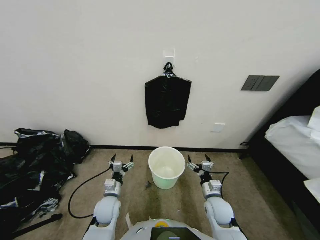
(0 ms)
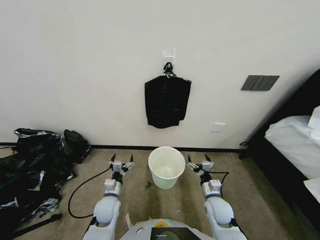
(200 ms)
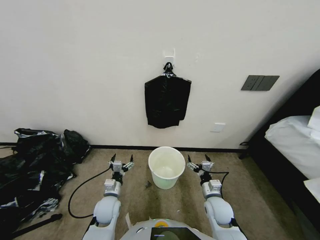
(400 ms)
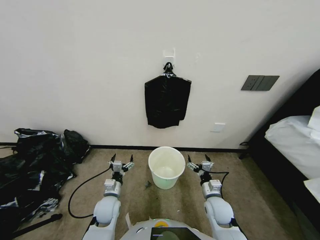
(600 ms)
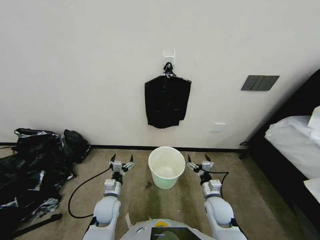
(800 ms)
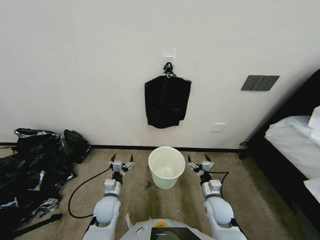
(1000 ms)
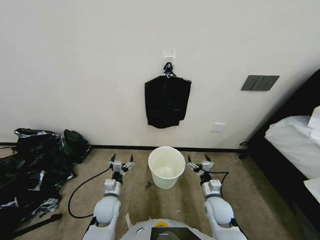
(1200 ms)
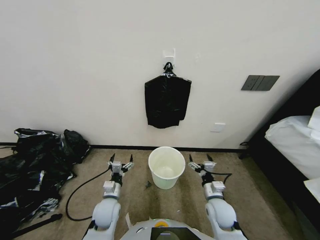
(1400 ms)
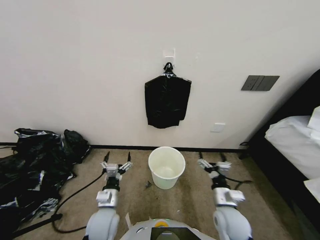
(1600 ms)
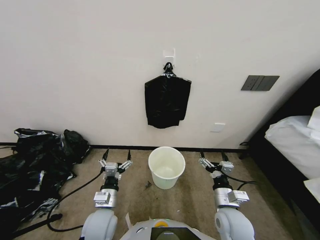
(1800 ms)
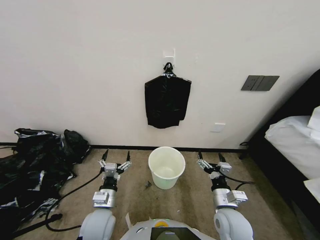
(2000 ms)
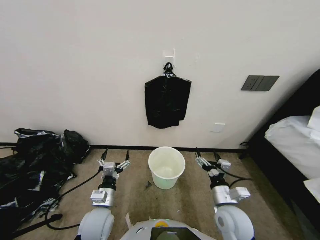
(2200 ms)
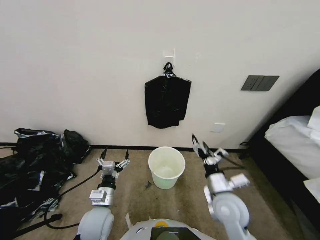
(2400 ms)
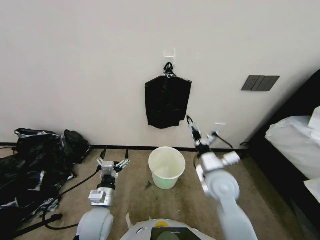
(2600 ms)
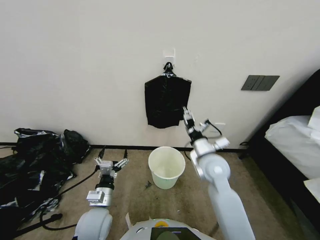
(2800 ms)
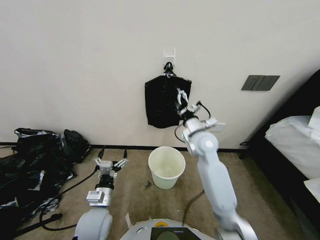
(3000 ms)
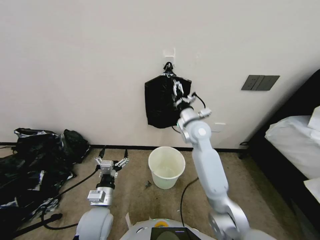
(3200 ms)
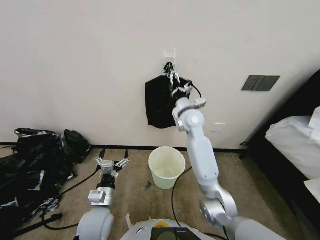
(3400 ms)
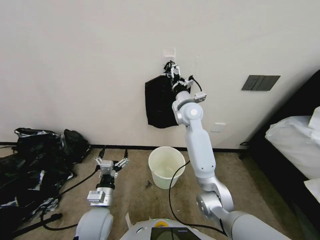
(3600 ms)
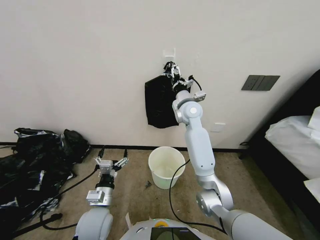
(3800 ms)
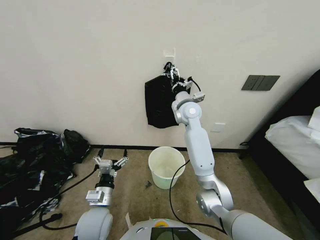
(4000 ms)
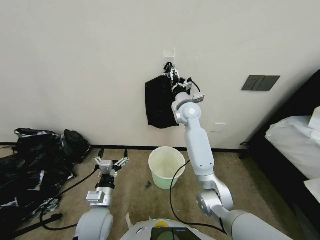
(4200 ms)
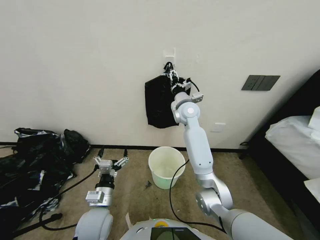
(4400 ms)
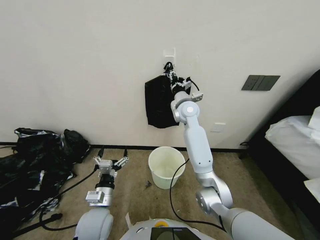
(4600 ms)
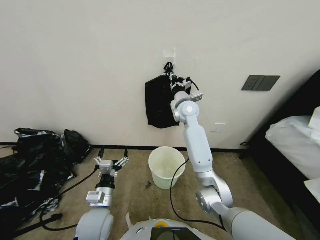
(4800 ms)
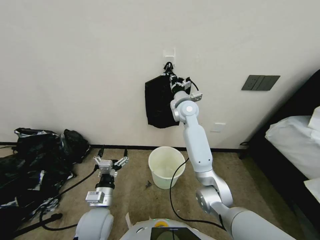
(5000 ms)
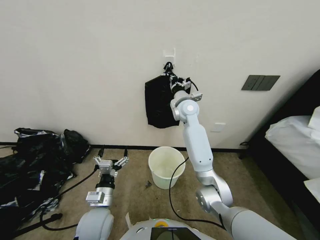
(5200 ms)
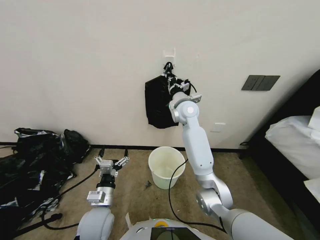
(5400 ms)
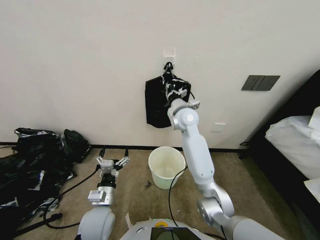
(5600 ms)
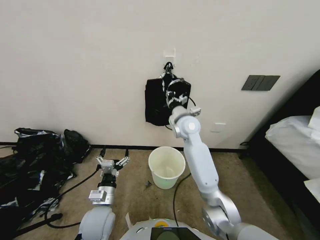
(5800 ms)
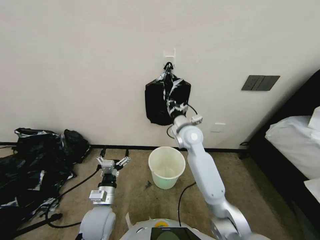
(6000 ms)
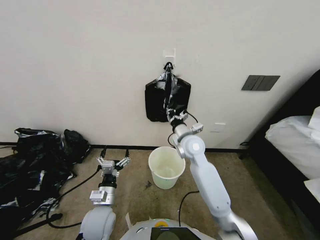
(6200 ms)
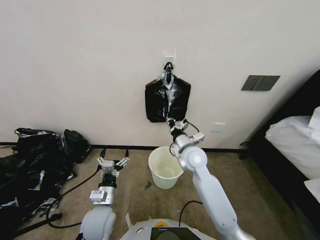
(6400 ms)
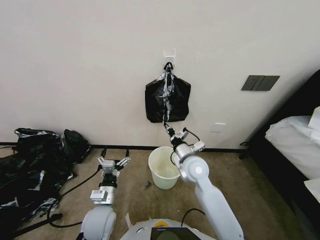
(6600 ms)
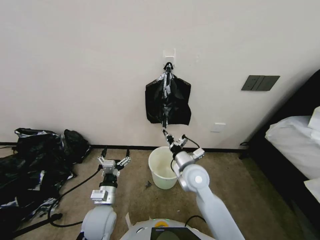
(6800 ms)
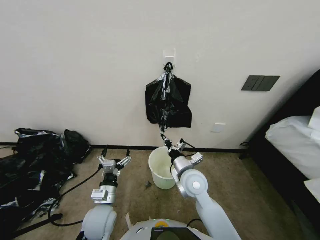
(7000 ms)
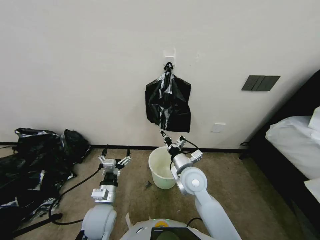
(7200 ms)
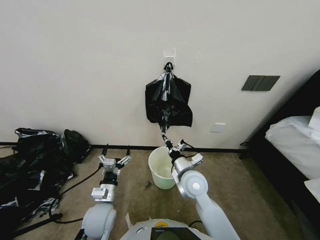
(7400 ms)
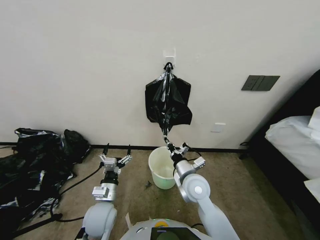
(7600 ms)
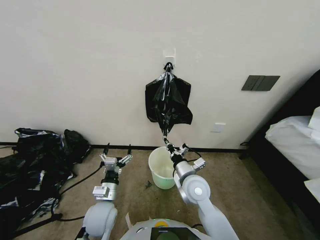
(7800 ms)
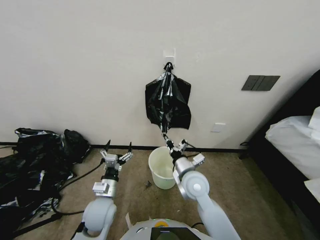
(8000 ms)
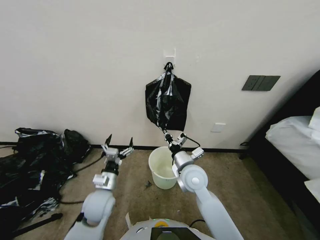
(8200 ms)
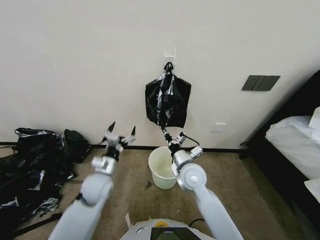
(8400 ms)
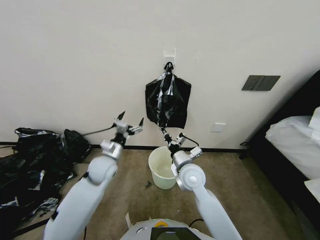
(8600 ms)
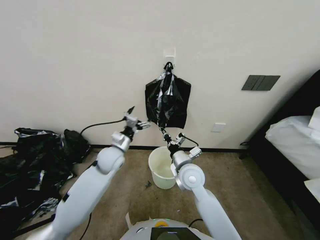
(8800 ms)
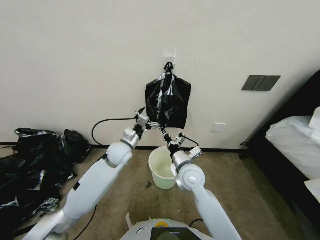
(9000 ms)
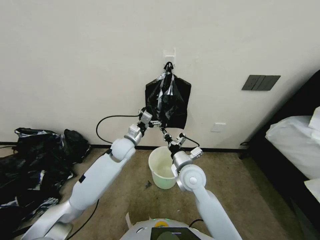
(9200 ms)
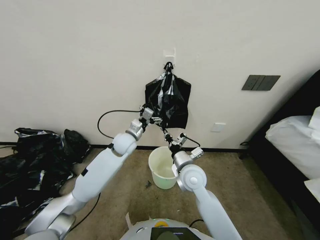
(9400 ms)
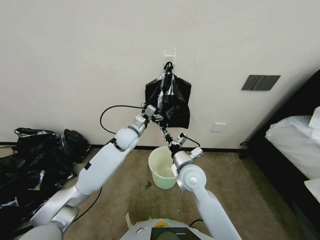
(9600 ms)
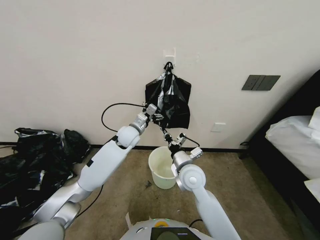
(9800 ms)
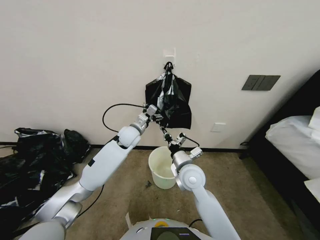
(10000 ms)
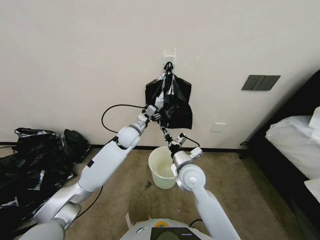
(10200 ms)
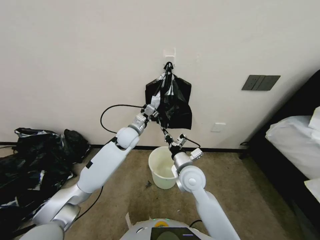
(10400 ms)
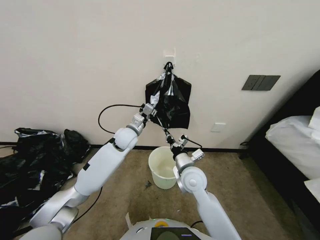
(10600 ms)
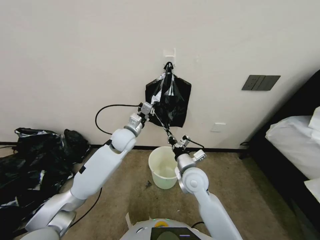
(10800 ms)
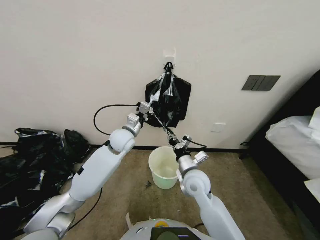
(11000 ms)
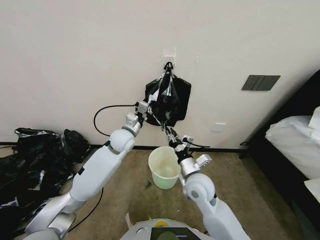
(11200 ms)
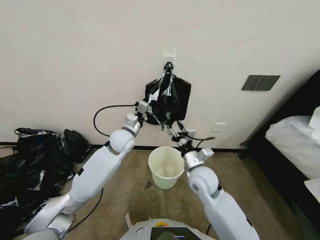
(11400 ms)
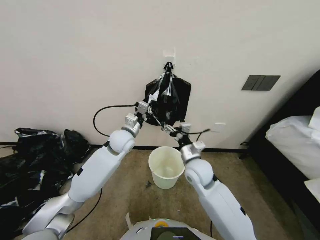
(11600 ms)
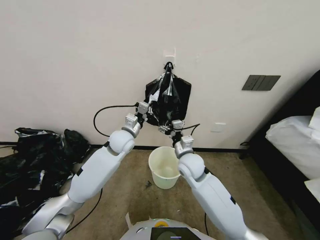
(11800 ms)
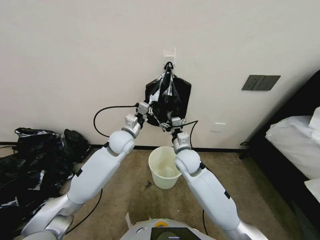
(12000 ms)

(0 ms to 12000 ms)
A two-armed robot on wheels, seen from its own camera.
Task of the whole recording: Place a trash bag onto the trash bin.
1600 ms - 3000 ms: The right gripper moves upward and forward, approximately 25 cm. The left gripper is displaced upward by about 5 cm.
3000 ms - 4400 ms: The right gripper travels forward and upward by about 15 cm.
4400 ms - 6000 ms: The right gripper travels backward by roughly 5 cm, and closes its fingers.
6000 ms - 7600 ms: The right gripper is displaced backward and downward by approximately 20 cm.
7600 ms - 9000 ms: The left gripper goes about 20 cm forward and upward.
9000 ms - 10400 ms: The left gripper moves forward, approximately 10 cm, and closes up.
10400 ms - 12000 ms: The left gripper changes place by roughly 5 cm, and closes its fingers, while the right gripper is displaced forward by some 5 cm, and opens.

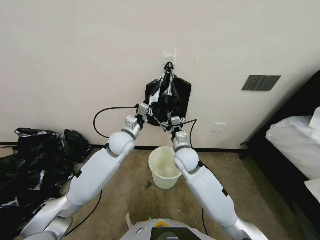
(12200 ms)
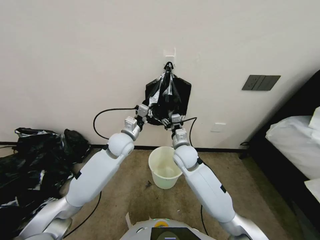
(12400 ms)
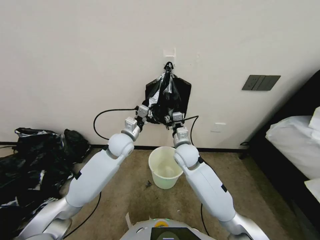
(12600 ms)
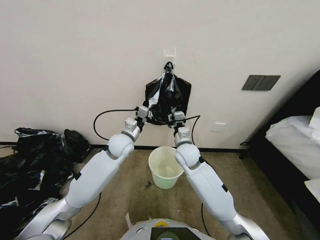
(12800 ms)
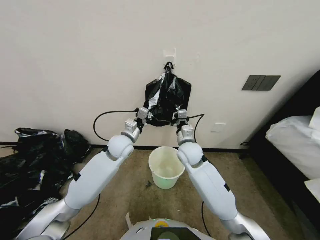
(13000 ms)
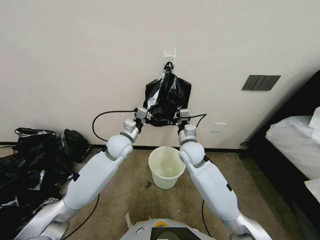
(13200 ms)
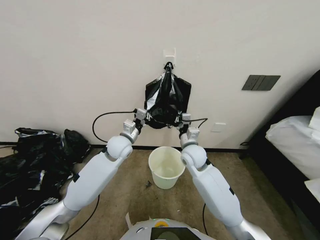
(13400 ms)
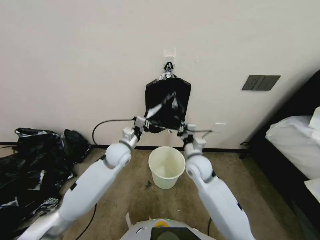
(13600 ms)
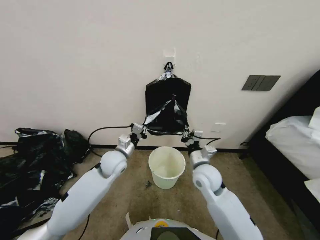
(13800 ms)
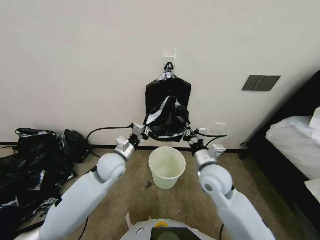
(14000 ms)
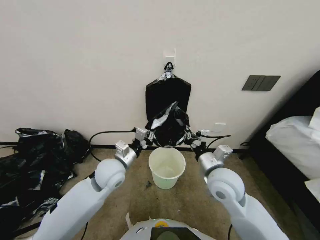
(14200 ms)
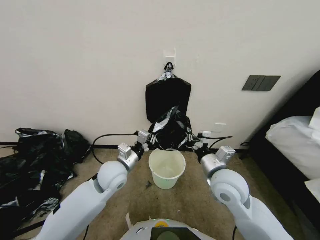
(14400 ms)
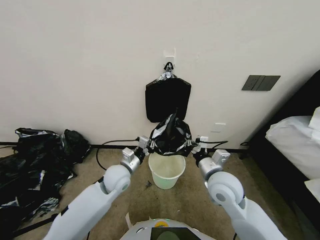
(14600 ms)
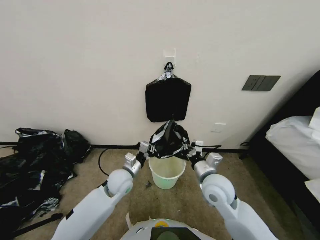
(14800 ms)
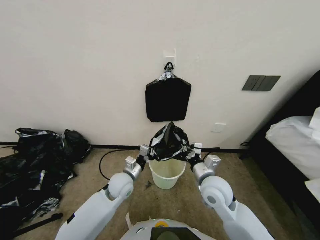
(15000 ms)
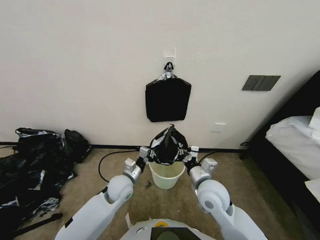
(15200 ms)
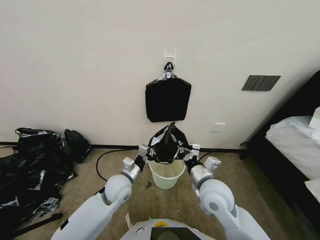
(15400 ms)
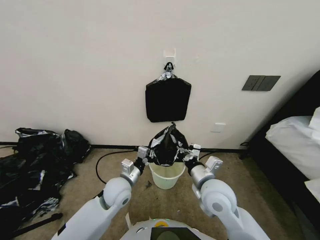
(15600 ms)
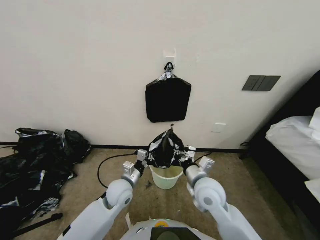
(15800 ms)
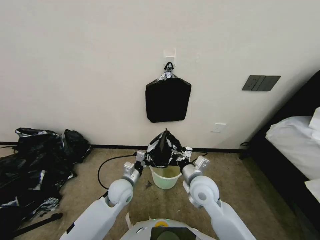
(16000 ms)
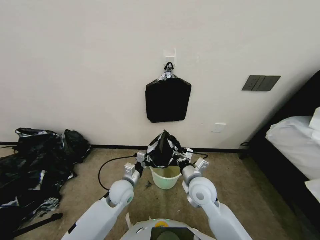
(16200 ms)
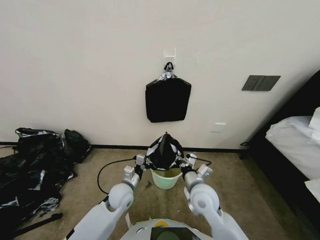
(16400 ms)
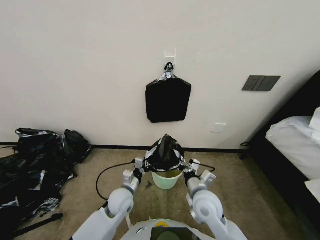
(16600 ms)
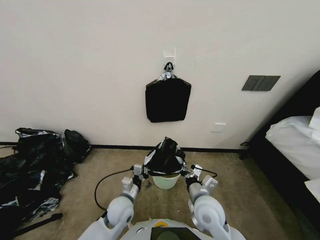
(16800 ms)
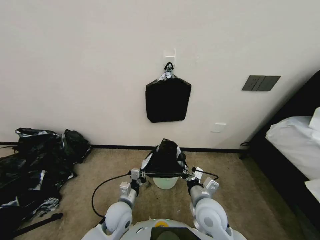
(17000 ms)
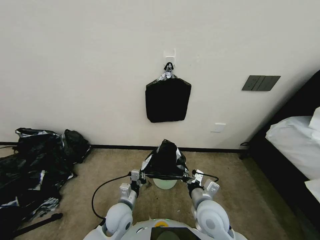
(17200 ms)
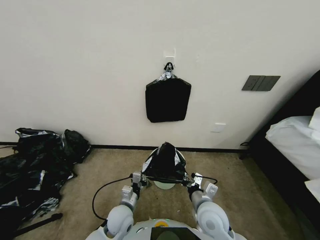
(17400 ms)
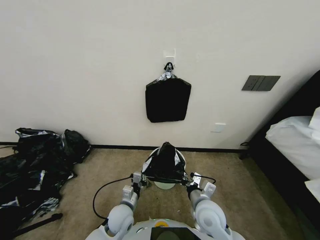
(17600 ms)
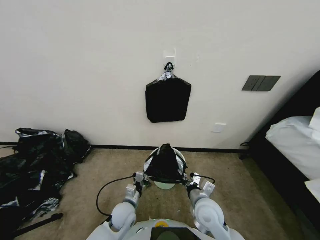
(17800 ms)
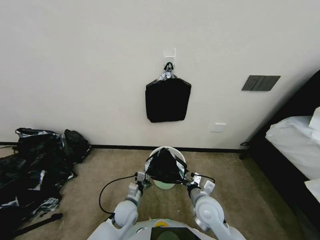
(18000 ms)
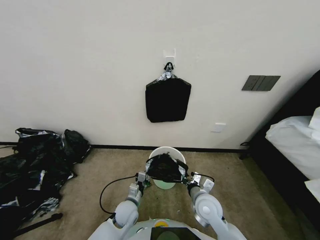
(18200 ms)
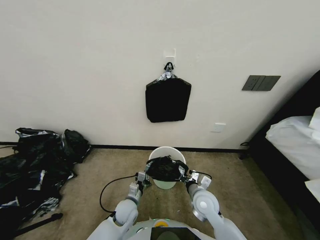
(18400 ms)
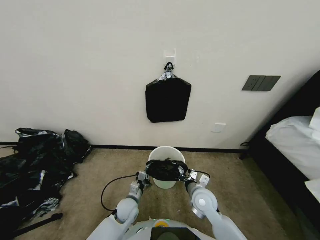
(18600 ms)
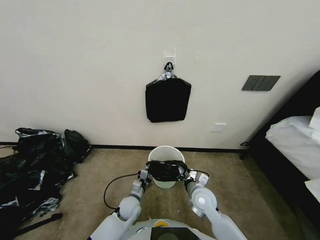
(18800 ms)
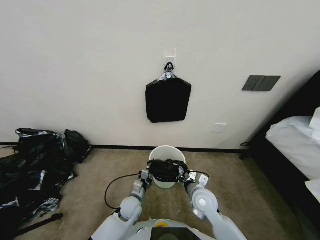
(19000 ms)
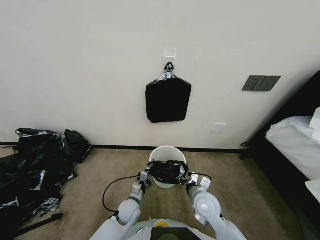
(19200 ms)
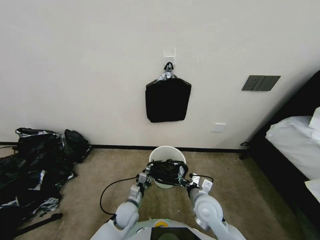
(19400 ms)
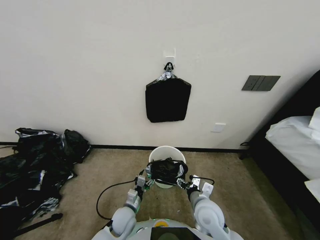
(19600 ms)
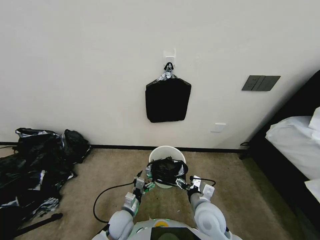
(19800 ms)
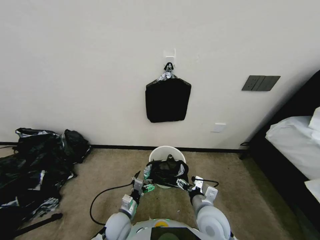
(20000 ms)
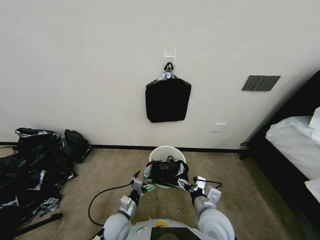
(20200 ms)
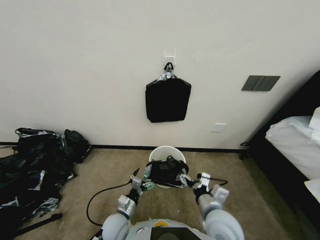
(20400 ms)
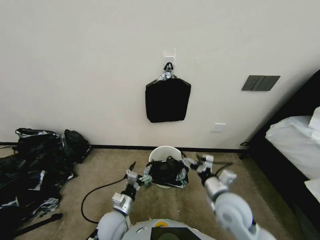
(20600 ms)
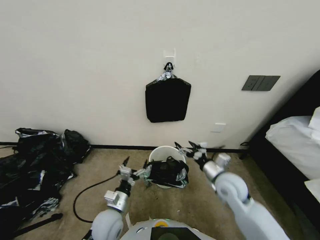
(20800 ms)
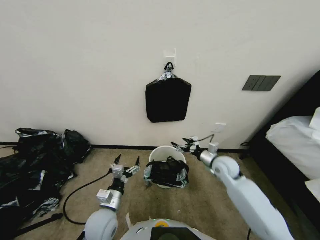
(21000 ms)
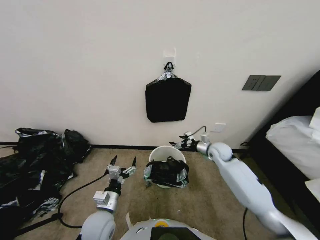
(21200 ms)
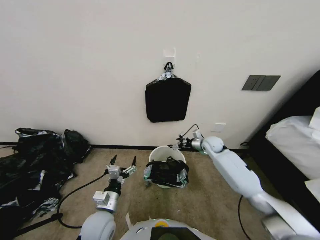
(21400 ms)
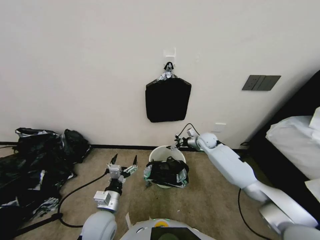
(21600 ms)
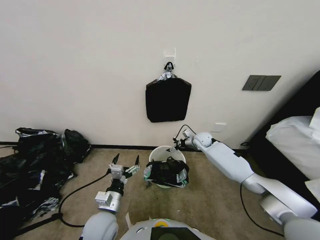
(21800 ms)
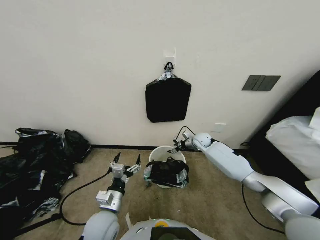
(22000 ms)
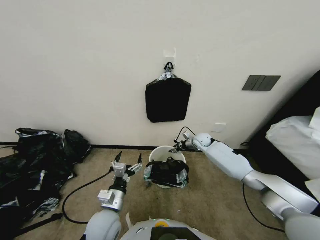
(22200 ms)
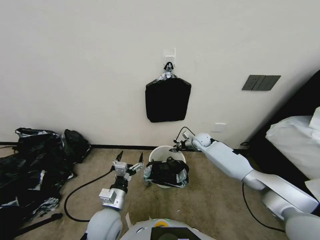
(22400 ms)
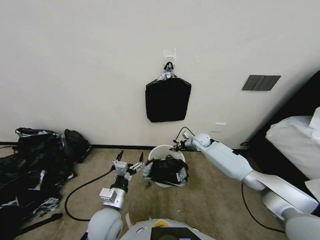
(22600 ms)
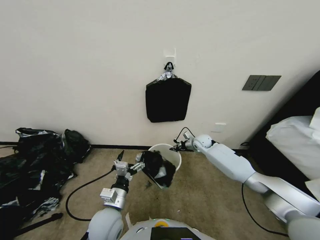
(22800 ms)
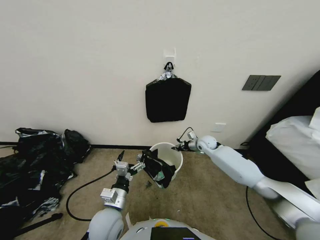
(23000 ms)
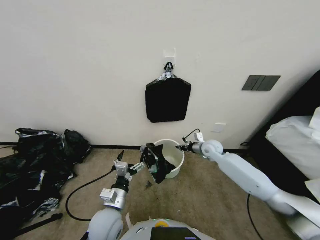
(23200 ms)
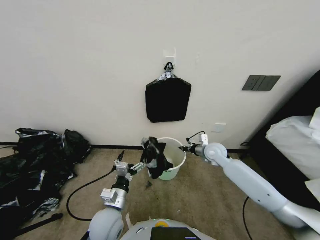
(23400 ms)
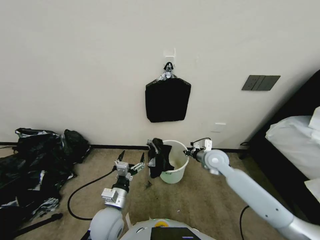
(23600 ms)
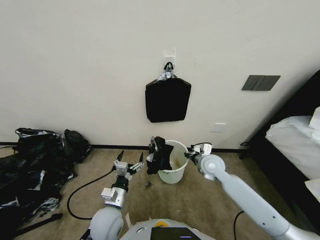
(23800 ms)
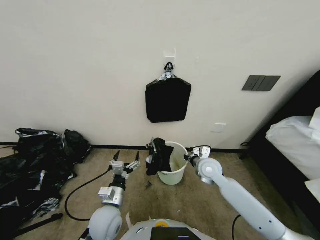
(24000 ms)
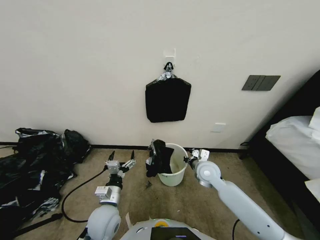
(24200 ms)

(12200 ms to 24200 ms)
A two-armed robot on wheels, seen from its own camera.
Task of the whole recording: Place a trash bag onto the trash bin.
12200 ms - 13800 ms: The left gripper shifts by approximately 5 cm. Meanwhile the right gripper moves to the right, some 5 cm, and closes.
13800 ms - 15200 ms: The right gripper travels backward by some 5 cm; the left gripper is displaced downward and backward by approximately 10 cm.
15200 ms - 16600 ms: The right gripper changes place by roughly 5 cm. The left gripper shifts by approximately 5 cm.
16600 ms - 18200 ms: The left gripper goes some 10 cm downward. The right gripper changes place by roughly 5 cm.
18200 ms - 19800 ms: The right gripper opens. The left gripper opens up.
19800 ms - 21200 ms: The left gripper is displaced upward by some 10 cm. The right gripper heads forward and to the right, covering roughly 25 cm.
21200 ms - 22600 ms: The right gripper heads forward, covering about 15 cm, and closes.
22600 ms - 24200 ms: The right gripper moves backward, about 20 cm.
